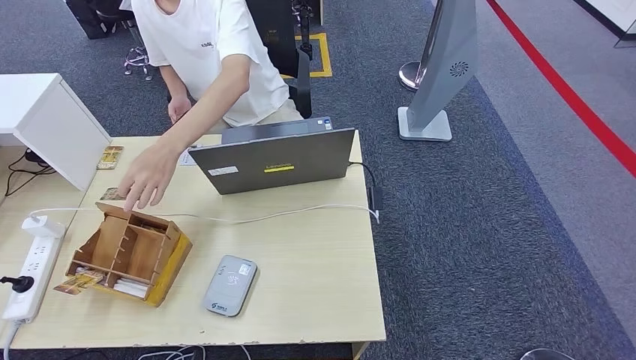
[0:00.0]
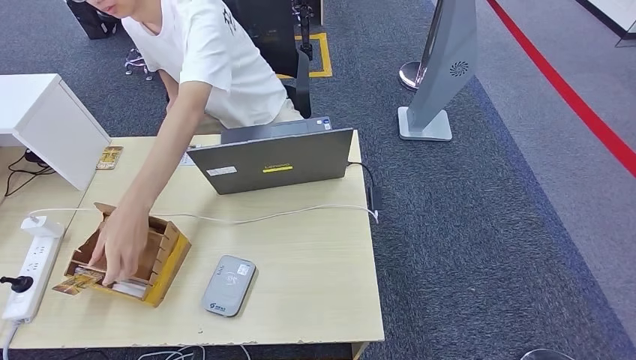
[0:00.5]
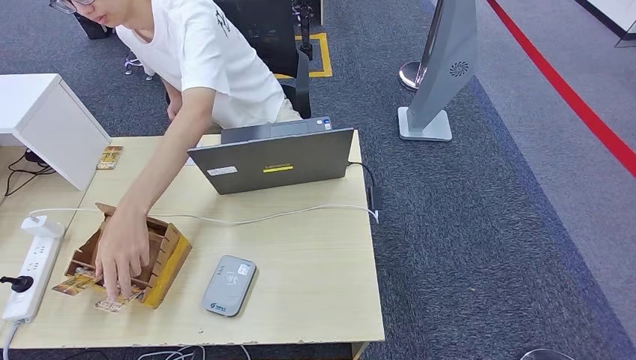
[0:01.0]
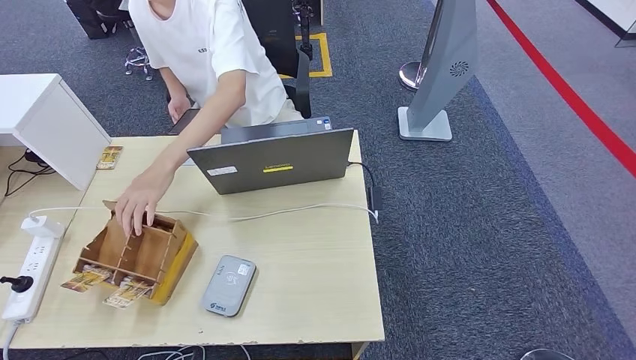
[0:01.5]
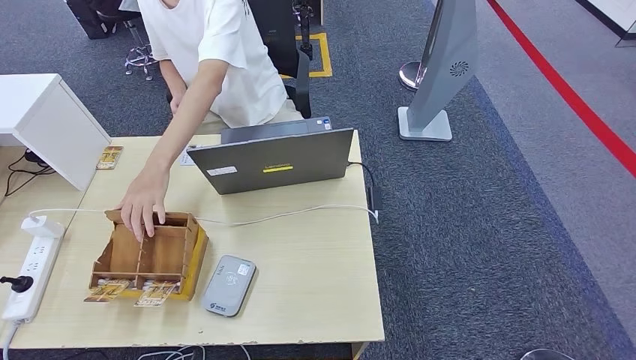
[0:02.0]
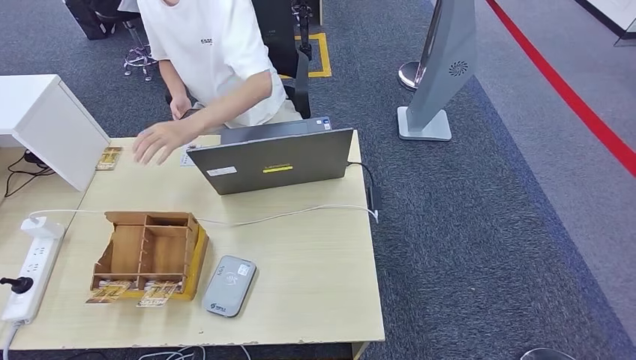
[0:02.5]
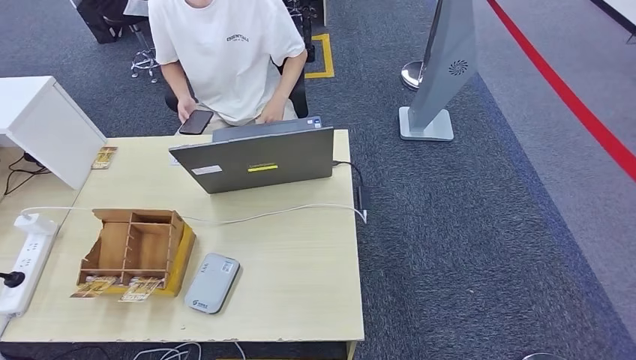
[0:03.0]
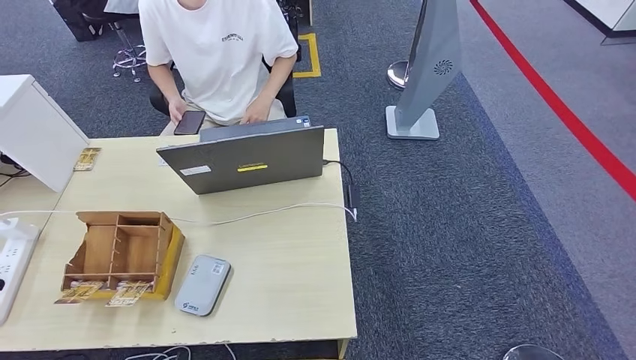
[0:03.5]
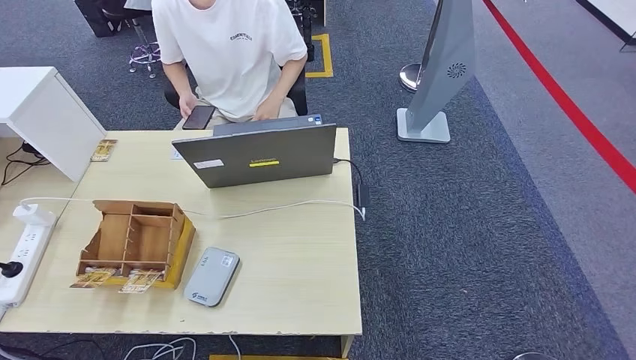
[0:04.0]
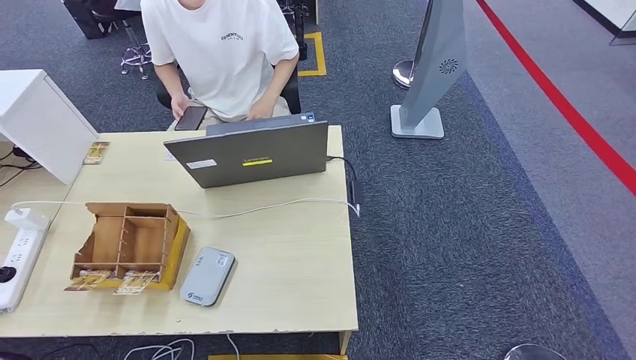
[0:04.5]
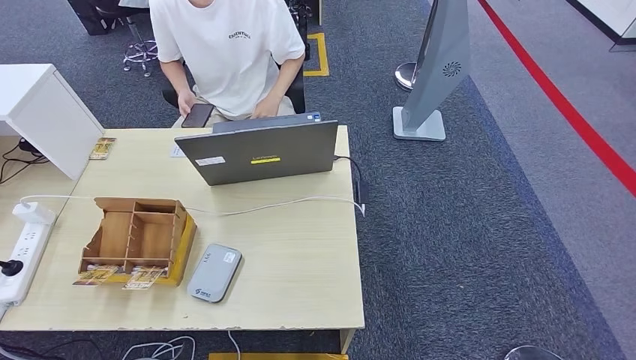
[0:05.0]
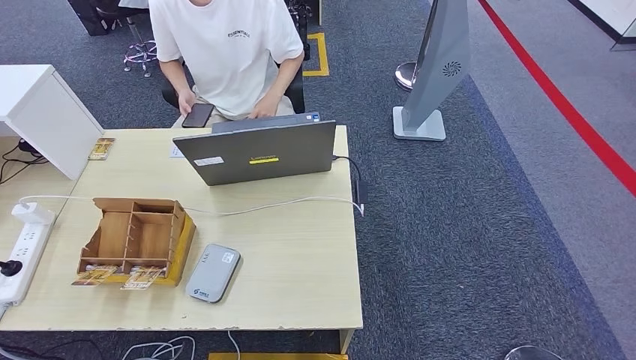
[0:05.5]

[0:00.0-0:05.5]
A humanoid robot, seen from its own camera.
Step, 0:00.0 to 0:05.5: Hand the room key to the person.
0:00.0 to 0:02.0: The left hand travels to the right by about 10 cm.
